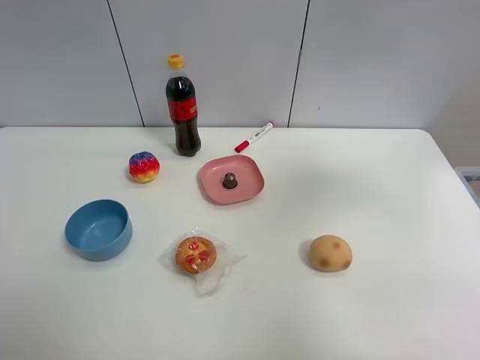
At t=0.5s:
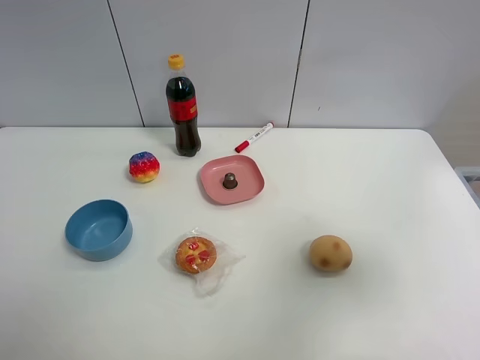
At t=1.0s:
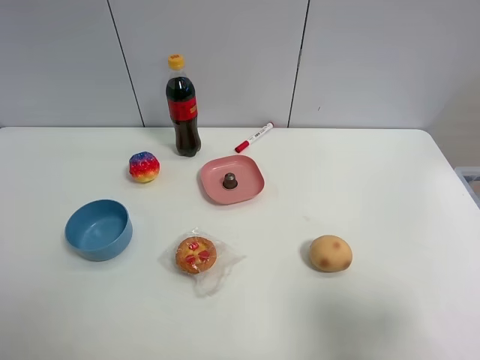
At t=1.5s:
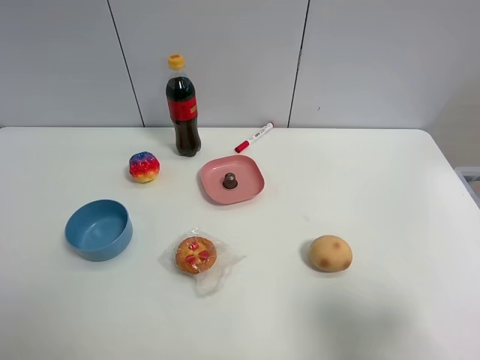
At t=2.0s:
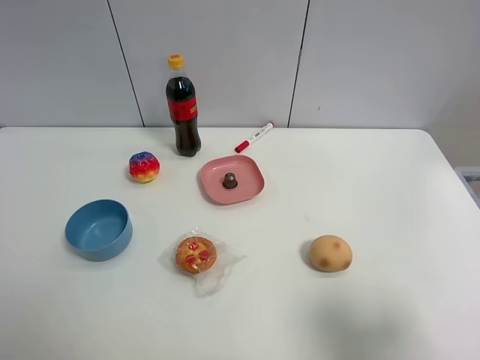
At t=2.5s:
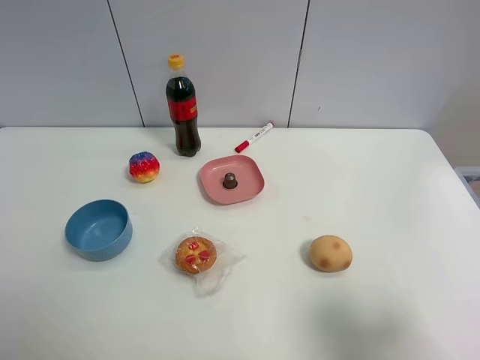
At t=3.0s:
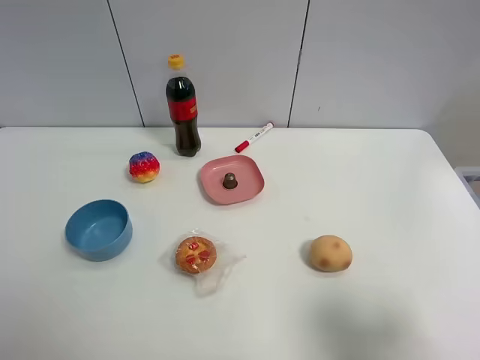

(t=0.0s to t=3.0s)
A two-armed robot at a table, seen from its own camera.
Task of the whole recording: the gripper move the object.
t=0.0s - t=1.5s: The right gripper is displaced backward and downward by roughly 25 cm.
t=1.5s - t=3.0s: Both grippers stay about where they are.

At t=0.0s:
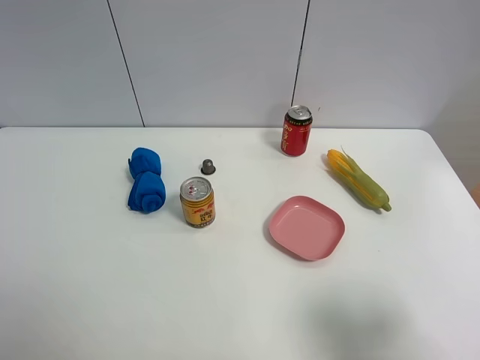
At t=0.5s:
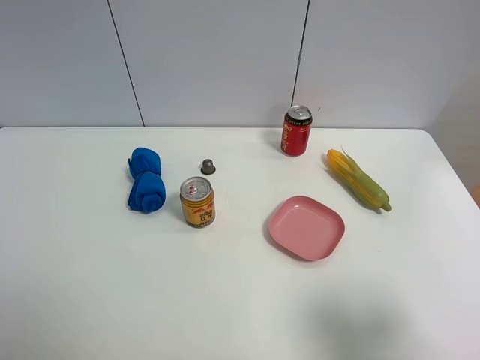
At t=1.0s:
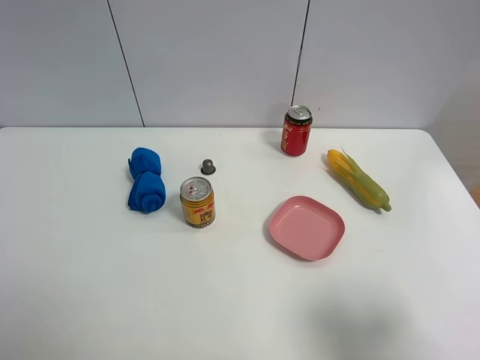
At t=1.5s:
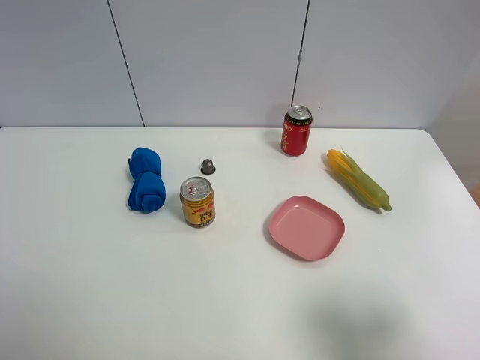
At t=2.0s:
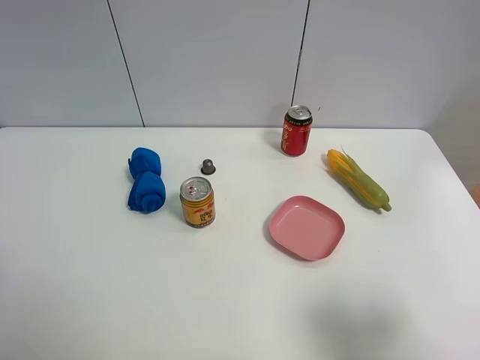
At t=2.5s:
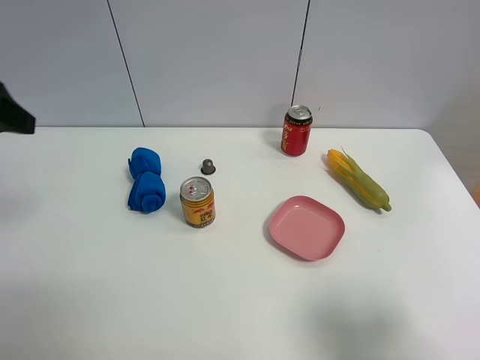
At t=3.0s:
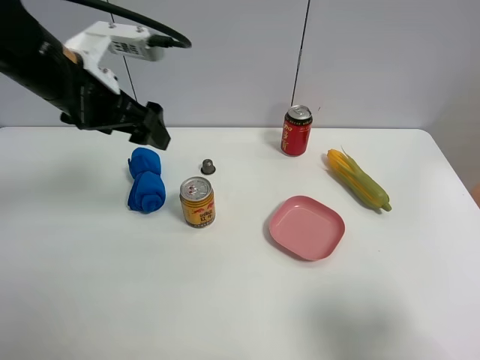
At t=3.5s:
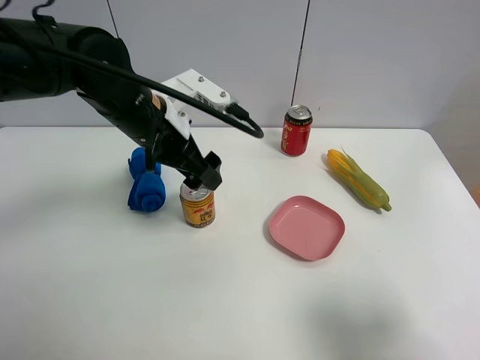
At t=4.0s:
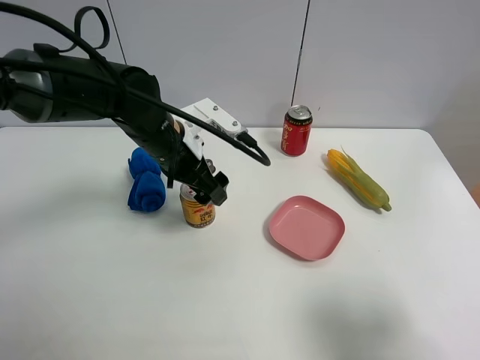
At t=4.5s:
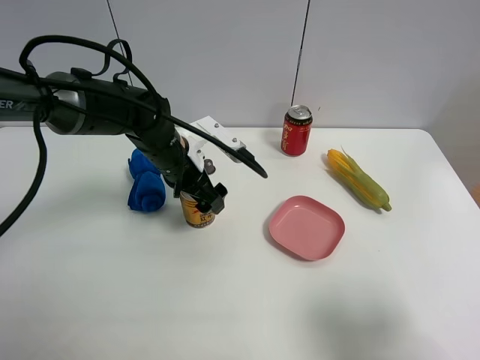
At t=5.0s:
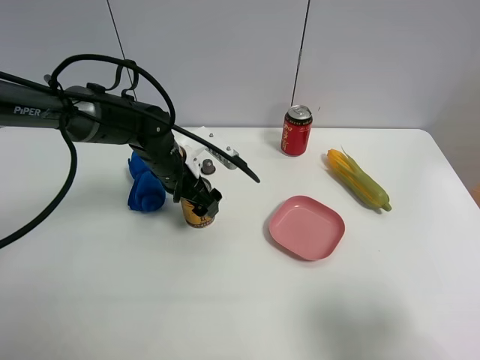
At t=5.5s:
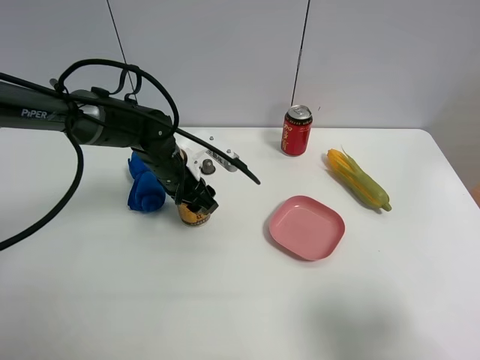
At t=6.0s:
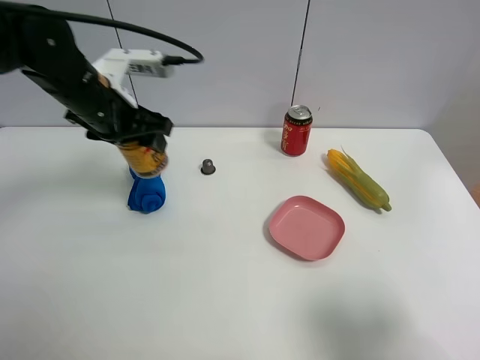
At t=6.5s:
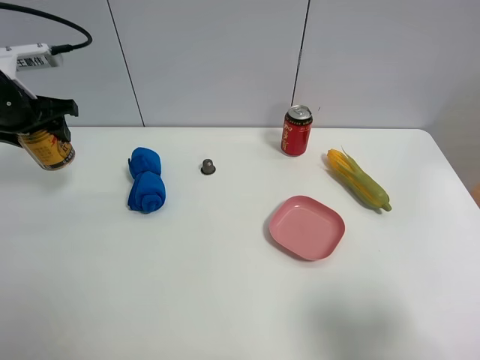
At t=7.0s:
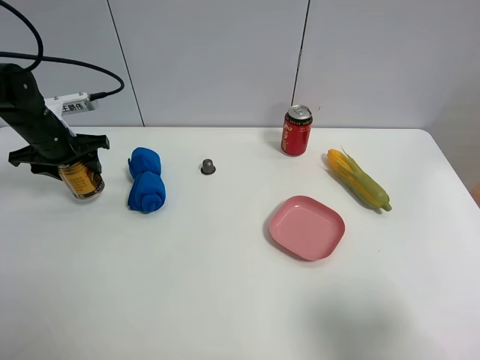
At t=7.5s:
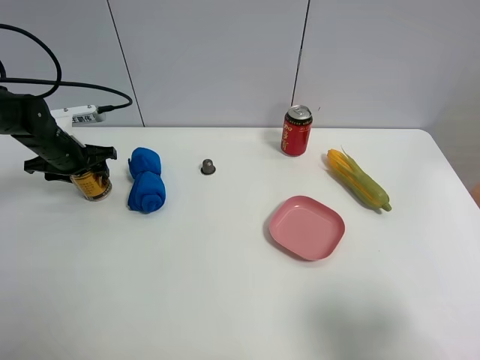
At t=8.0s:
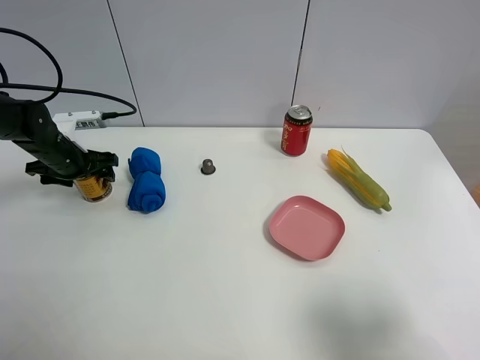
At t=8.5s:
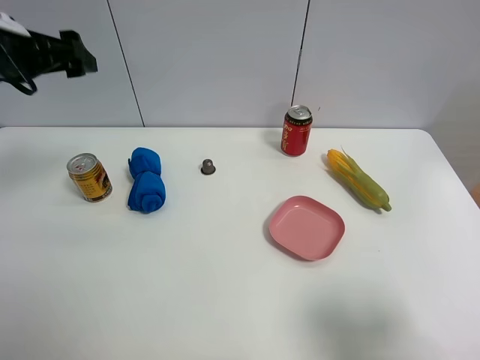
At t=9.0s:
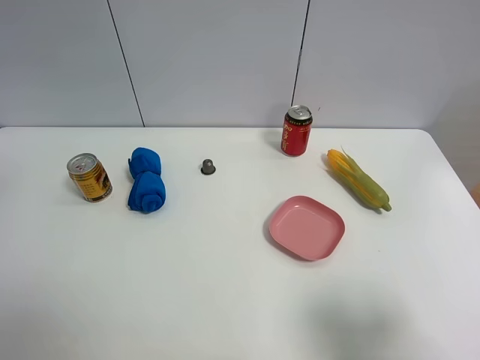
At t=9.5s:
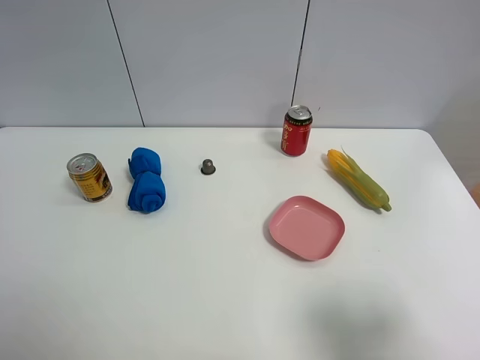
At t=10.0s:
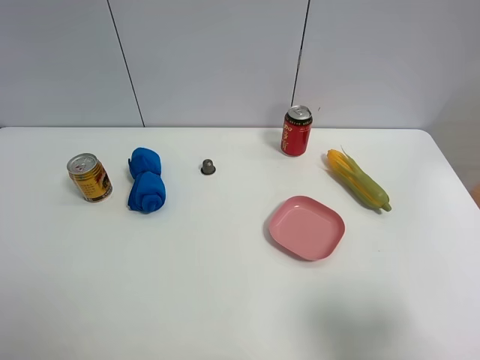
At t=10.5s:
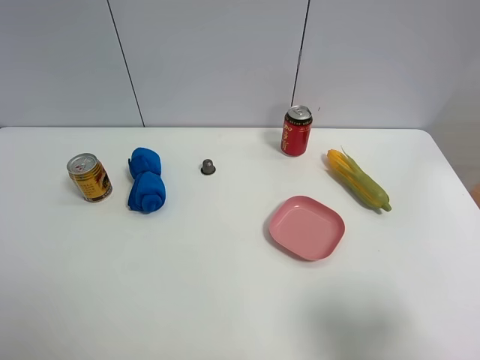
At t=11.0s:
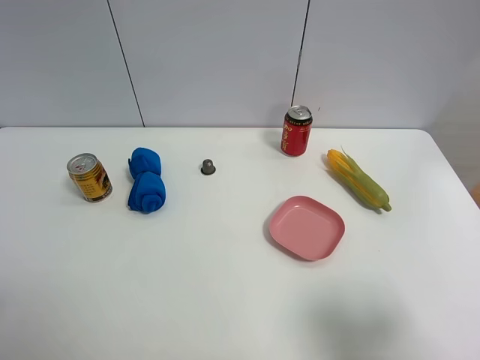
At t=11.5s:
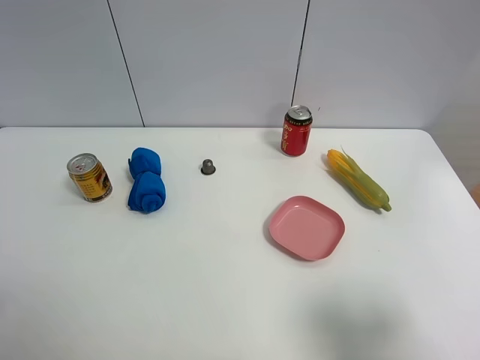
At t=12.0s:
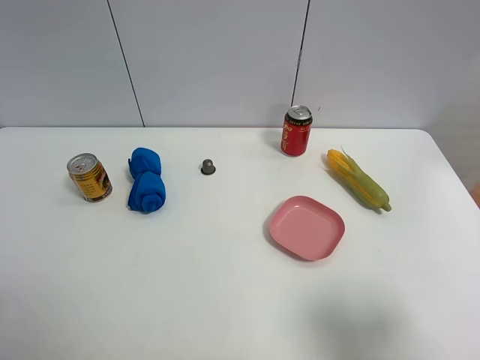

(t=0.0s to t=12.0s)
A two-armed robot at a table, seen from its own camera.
Task of the whole recording: the gripper move the object.
Step, t=0.0s - t=5.0s: Grasp the red bull with the left gripper.
Step, t=5.5s - t=8.0s: Place the red bull on the table with the left gripper.
t=2.0s - t=4.0s: The left gripper goes roughly 35 cm forward, to the right and downward.
t=4.0s - t=6.0s: The left gripper heads to the left and upward, covering some 15 cm, and closes its fingers.
t=6.0s - t=8.0s: The left gripper moves downward and to the left, some 15 cm, and opens up.
t=8.0s - t=10.0s: The left gripper is displaced backward and upward by some 40 cm.

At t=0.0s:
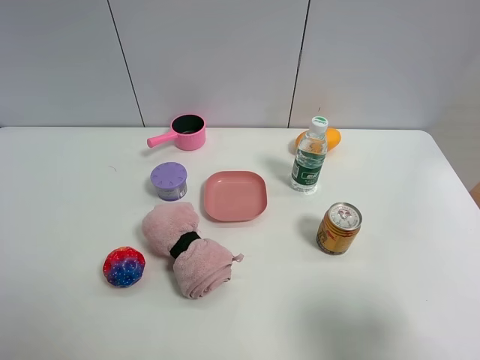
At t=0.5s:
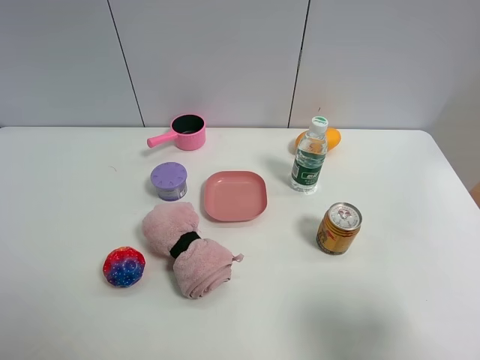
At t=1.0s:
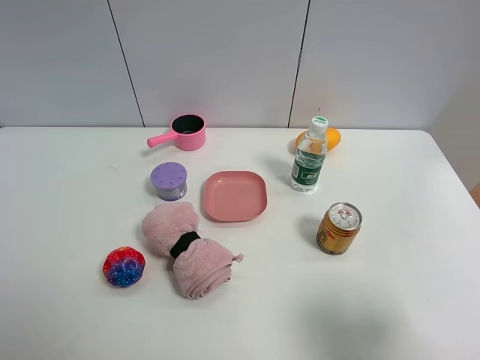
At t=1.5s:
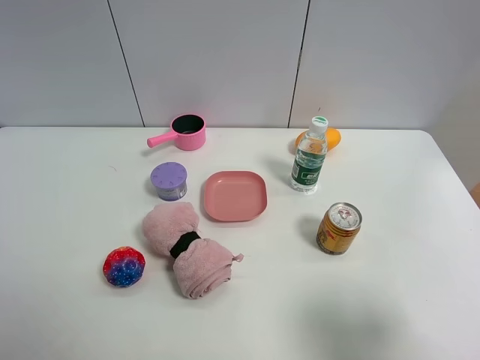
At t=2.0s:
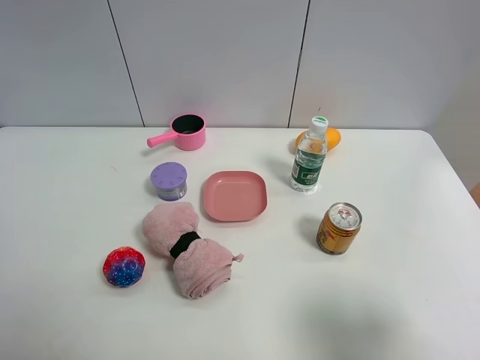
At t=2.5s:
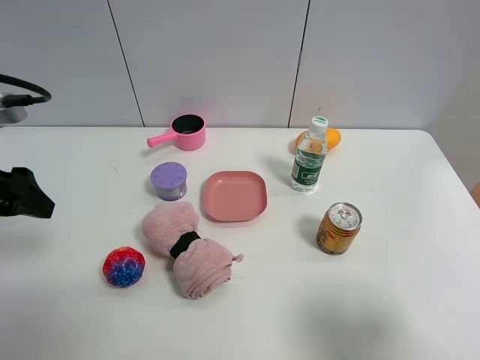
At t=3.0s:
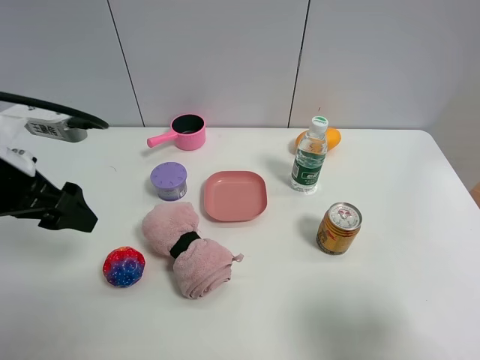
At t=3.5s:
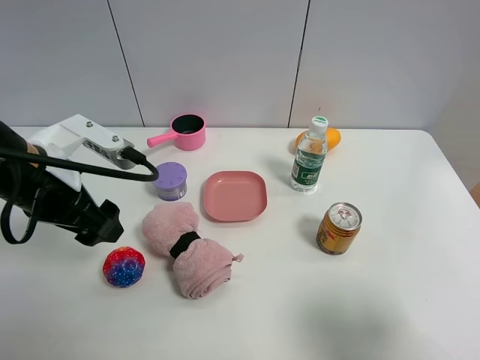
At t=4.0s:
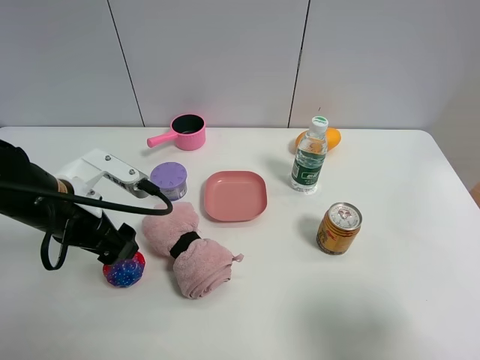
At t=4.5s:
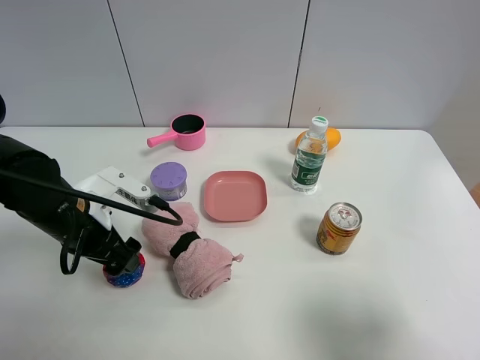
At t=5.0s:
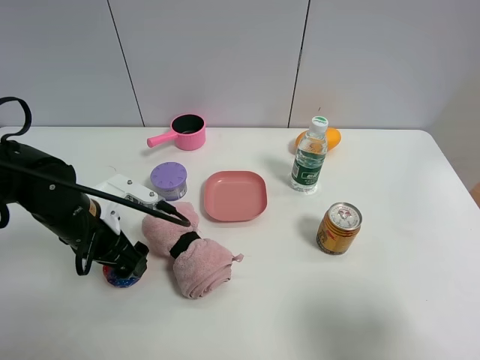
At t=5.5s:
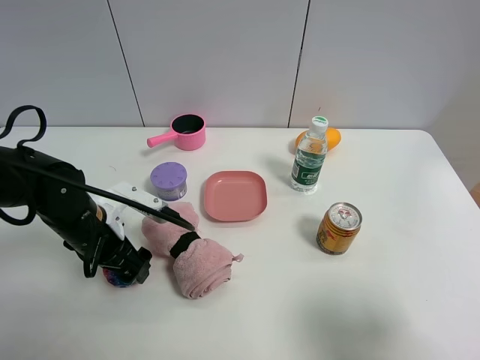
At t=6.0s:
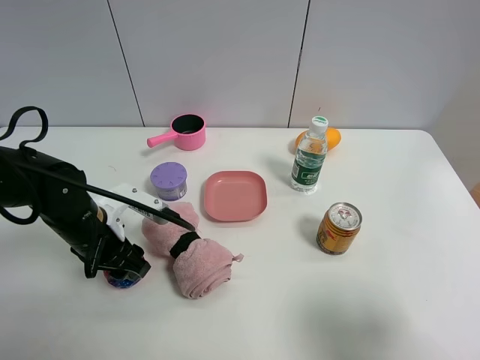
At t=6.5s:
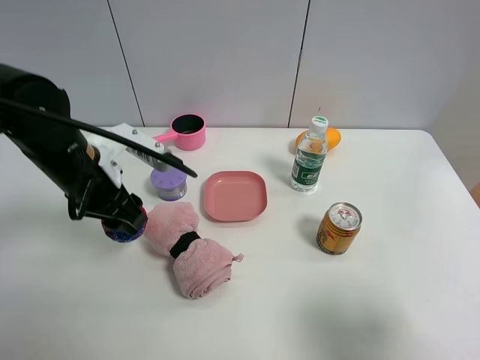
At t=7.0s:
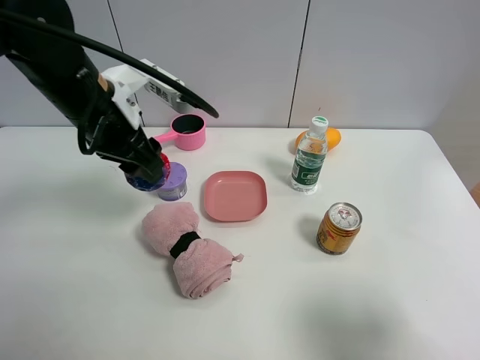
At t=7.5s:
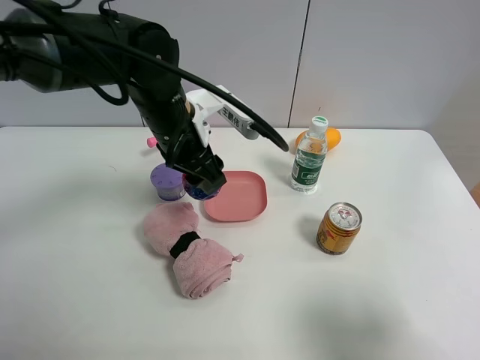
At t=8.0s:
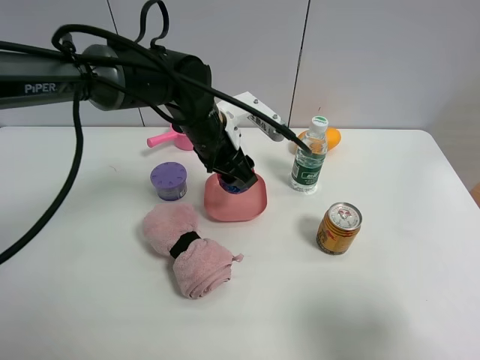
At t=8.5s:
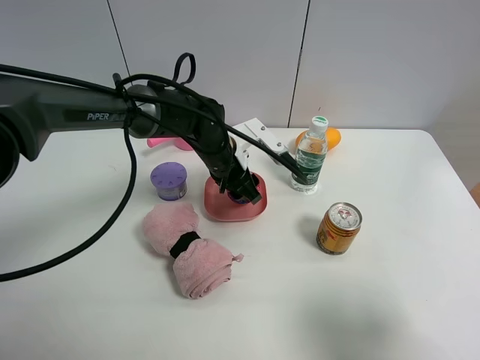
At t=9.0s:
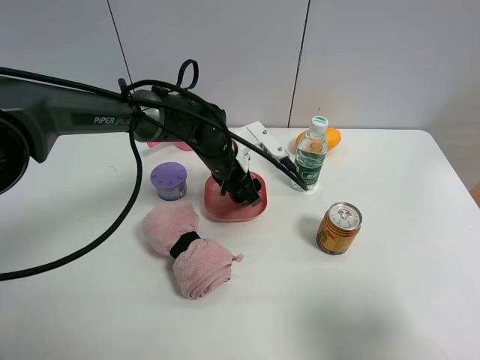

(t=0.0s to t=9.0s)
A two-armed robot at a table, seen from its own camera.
Task of the whole recording: the gripper move the object.
Step, t=0.0s - t=6.0s: Grasp the colorful ball with the left gripper.
t=2.0s - t=4.5s: The left gripper heads downward, to the right and forward, covering some 25 cm.
t=4.5s - t=7.0s: The left gripper is displaced upward, forward and to the right by about 15 cm, and closes up.
t=7.0s - t=9.0s: The left gripper heads downward, to the right and forward, covering some 20 cm, and opens up.

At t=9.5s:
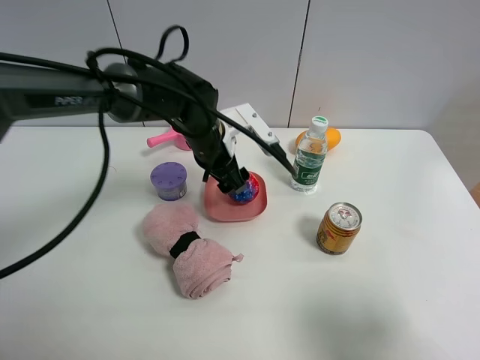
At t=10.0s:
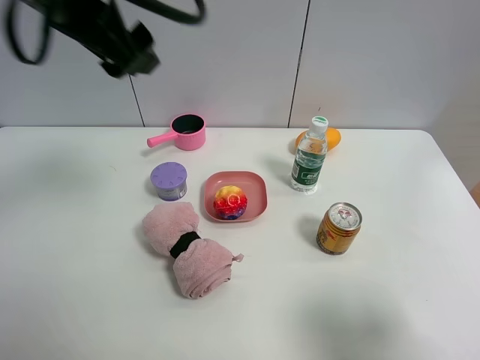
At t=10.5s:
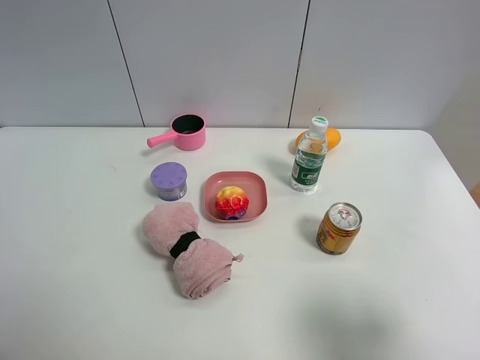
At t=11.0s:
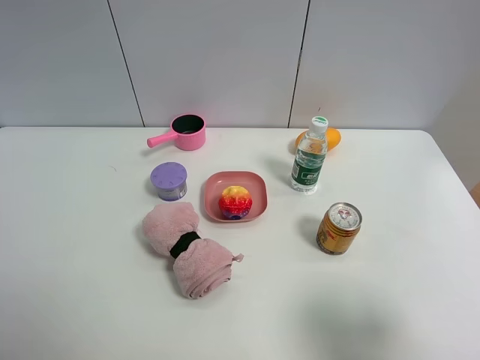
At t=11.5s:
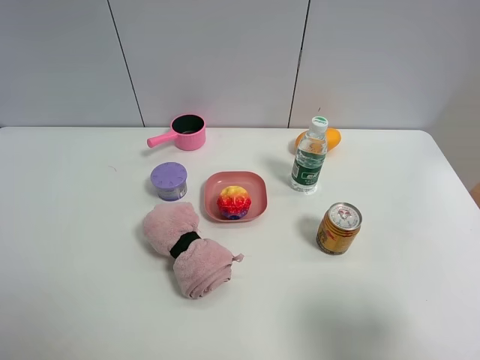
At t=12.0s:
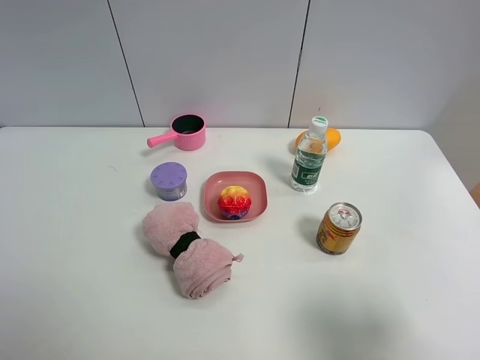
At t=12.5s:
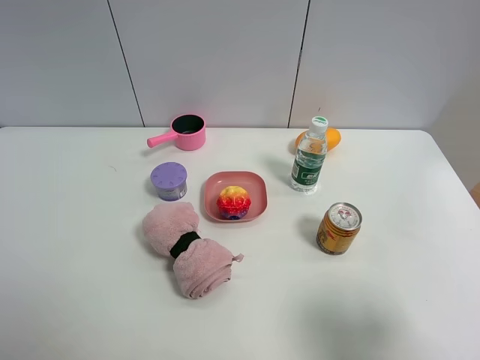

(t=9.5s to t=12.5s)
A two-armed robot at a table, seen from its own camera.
Task of the whole recording: the gripper move the object.
t=9.5s - t=11.0s: The left gripper shifts about 60 cm backward, upward and to the left.
